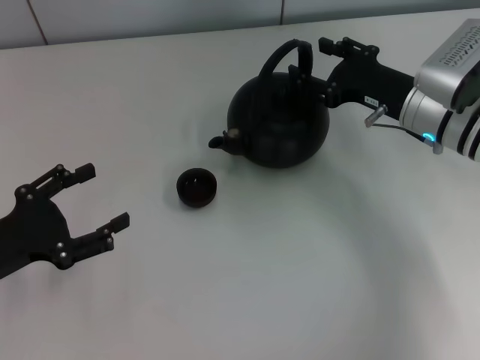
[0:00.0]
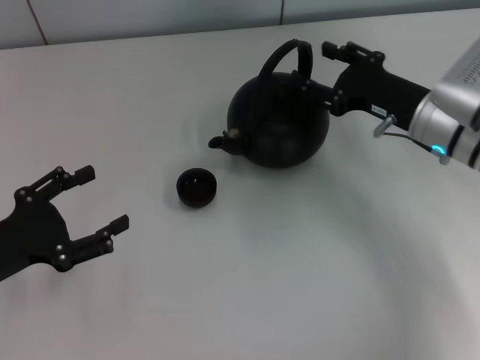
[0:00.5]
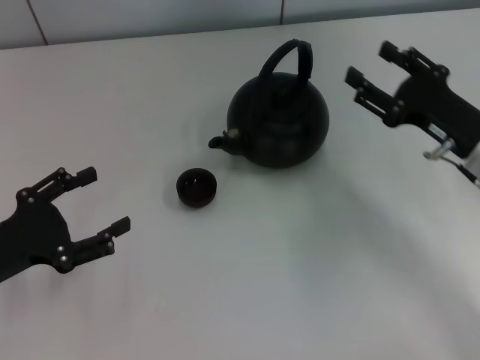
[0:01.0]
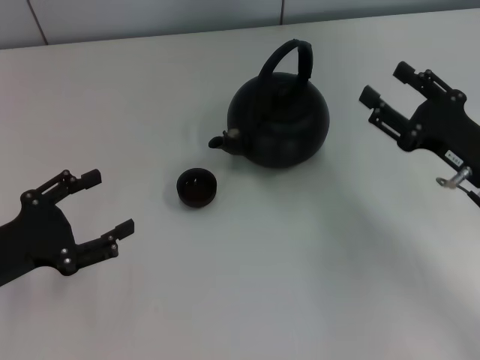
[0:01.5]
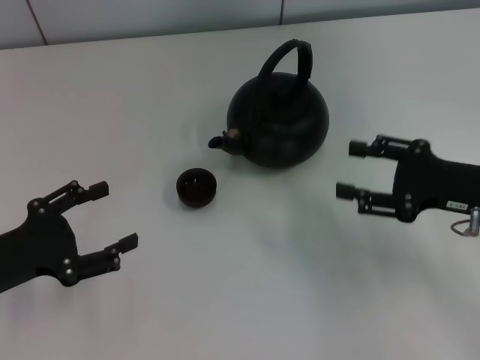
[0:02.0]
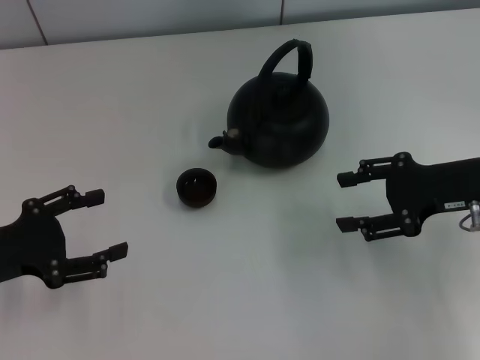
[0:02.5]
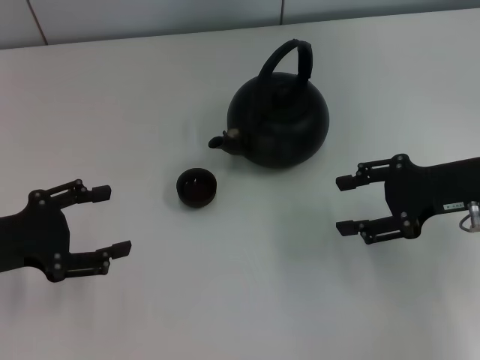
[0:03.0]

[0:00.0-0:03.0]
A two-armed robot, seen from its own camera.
Task of the whole recording: Grasp the handle of the teapot with one hand and pour tea into the teacup.
0:00.0 to 0:01.5: The right gripper travels backward by about 10 cm.
0:01.5 to 0:03.0: The right gripper shifts by approximately 5 cm.

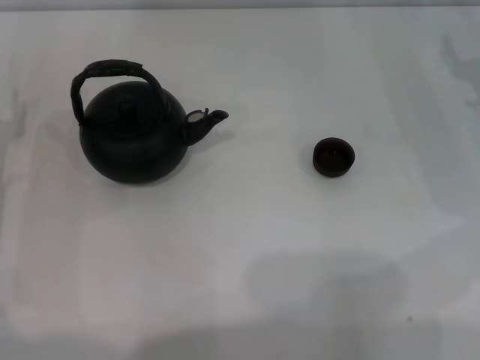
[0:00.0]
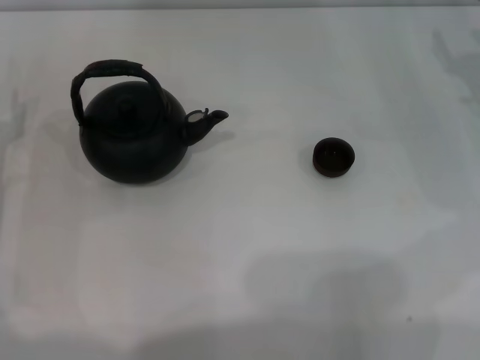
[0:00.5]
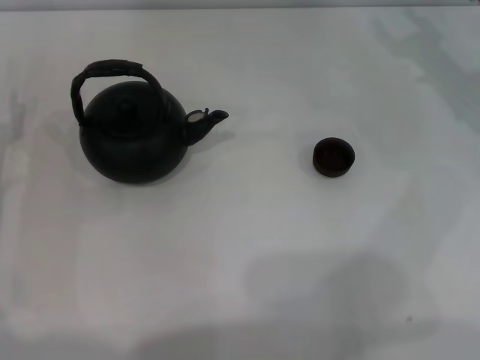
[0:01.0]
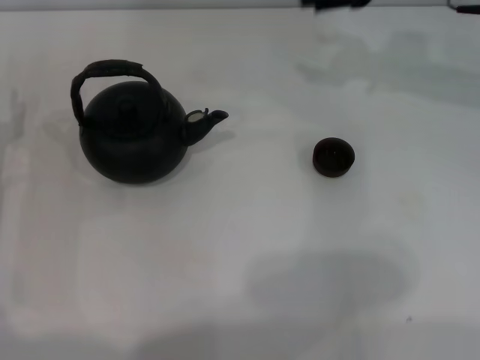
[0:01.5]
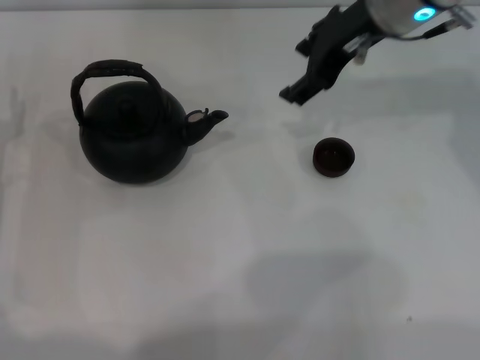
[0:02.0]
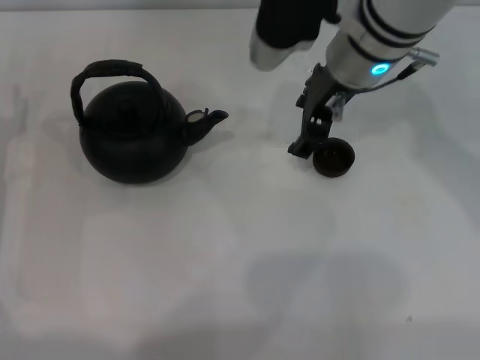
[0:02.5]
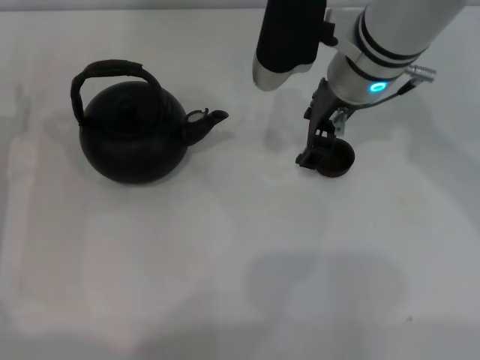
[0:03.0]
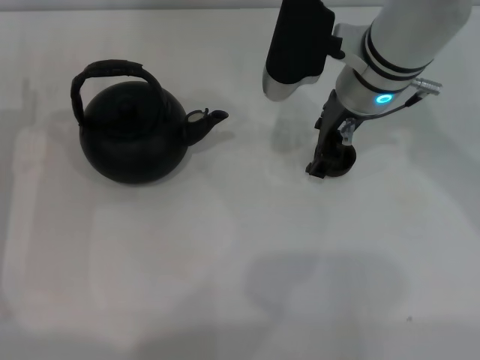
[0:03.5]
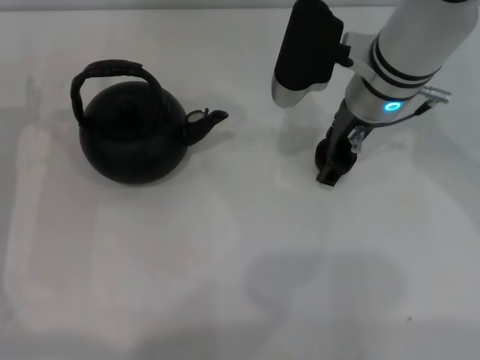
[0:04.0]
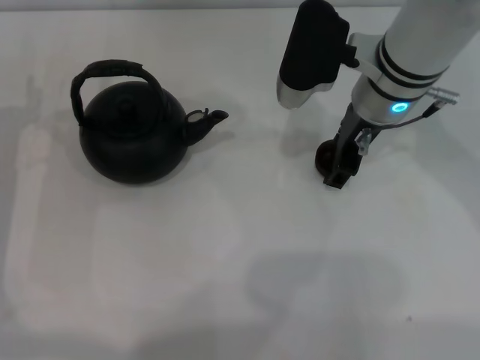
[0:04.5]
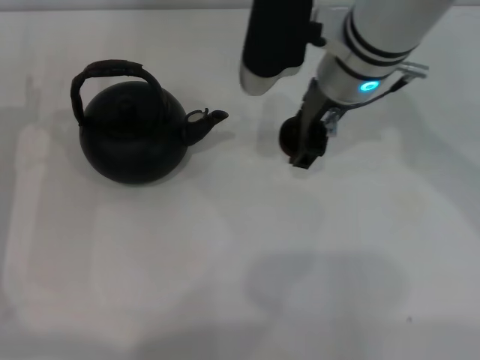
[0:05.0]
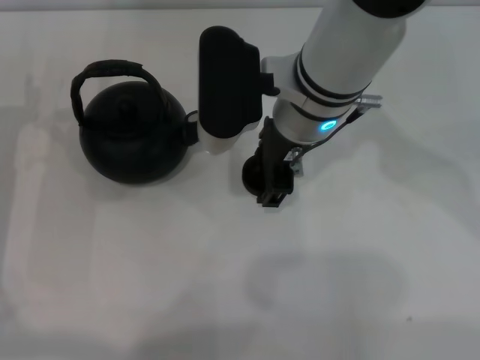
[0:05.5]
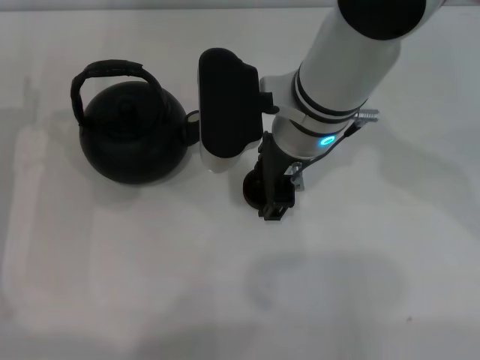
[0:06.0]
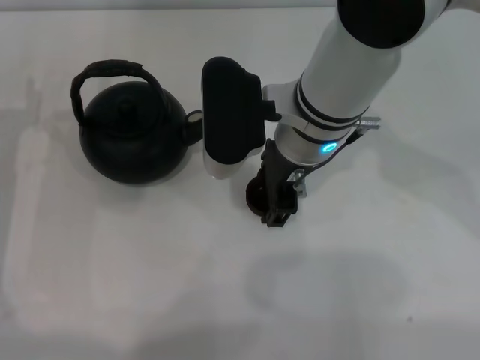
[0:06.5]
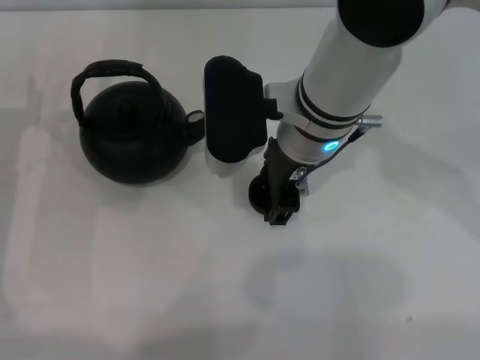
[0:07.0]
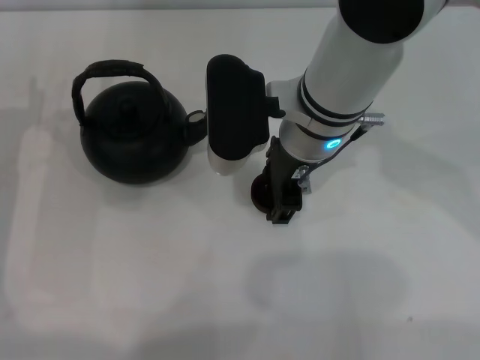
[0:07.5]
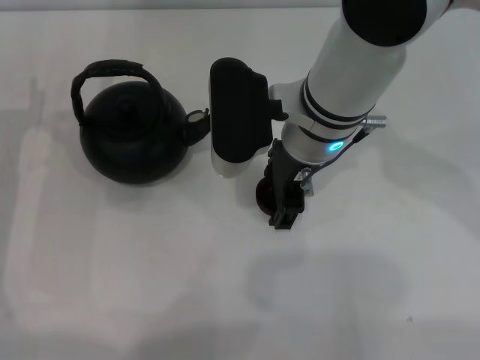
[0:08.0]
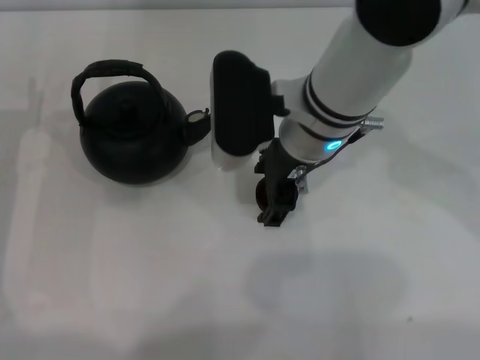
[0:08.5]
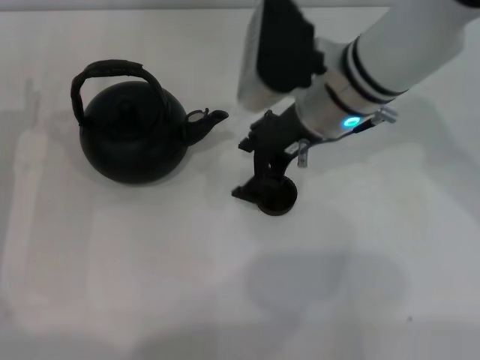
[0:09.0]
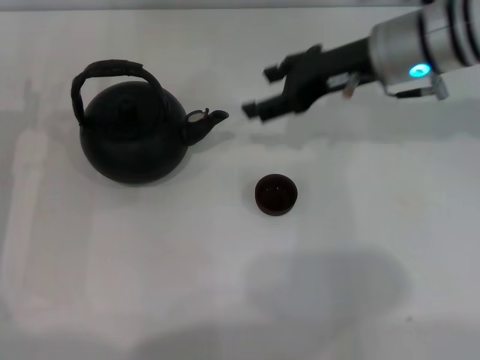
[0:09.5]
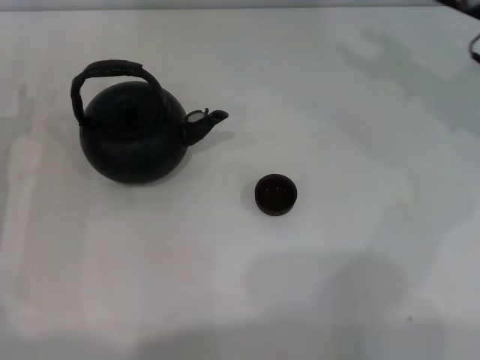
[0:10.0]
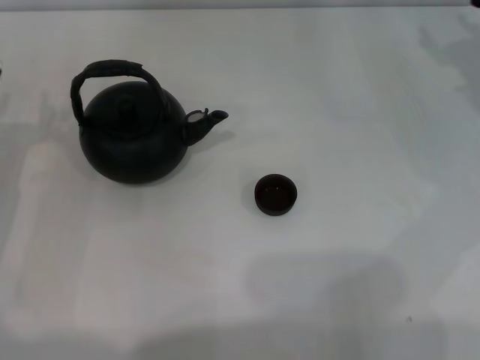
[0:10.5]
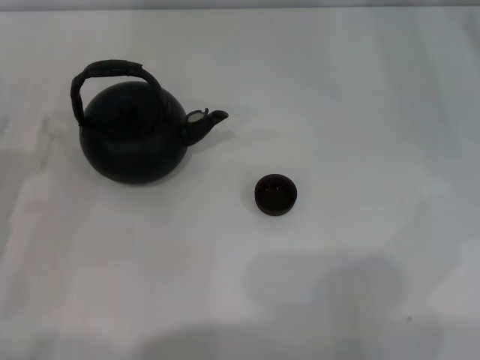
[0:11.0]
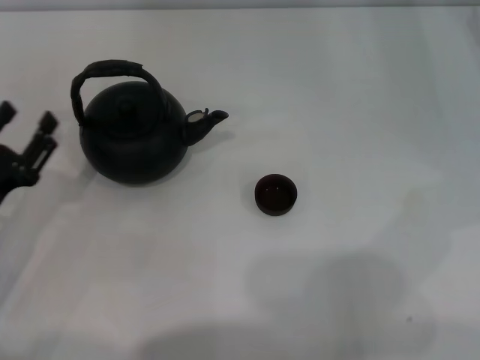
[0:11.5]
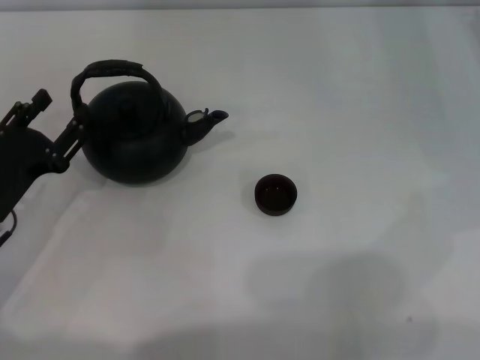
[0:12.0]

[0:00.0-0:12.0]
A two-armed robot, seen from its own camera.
Task of the whole recording: Grasp the handle of the teapot with one hand and pour tea into the teacup.
Step, 0:00.0 to 0:04.5: Pick up the teacup with the right gripper.
Step, 0:05.0 to 0:08.5: Place the teacup in the center of view with the right gripper.
0:00.0 to 0:02.0: The right gripper is displaced to the left and upward by about 25 cm.
0:02.0 to 0:04.0: The right gripper is displaced downward by roughly 10 cm.
0:04.0 to 0:06.0: The right gripper heads to the left, covering about 5 cm.
0:06.0 to 0:08.0: The right gripper opens its fingers.
0:08.0 to 0:10.0: The right gripper heads to the right, covering roughly 20 cm, and opens.
0:10.0 to 0:12.0: The left gripper ends up about 5 cm from where it was.

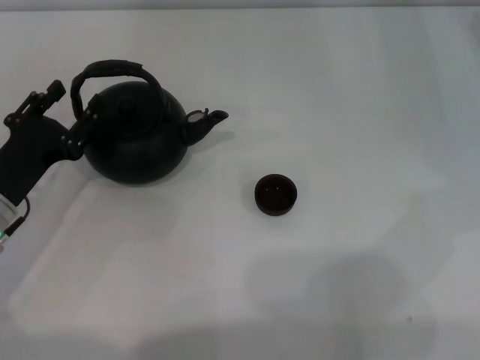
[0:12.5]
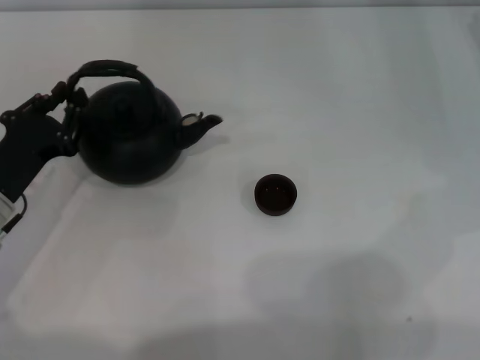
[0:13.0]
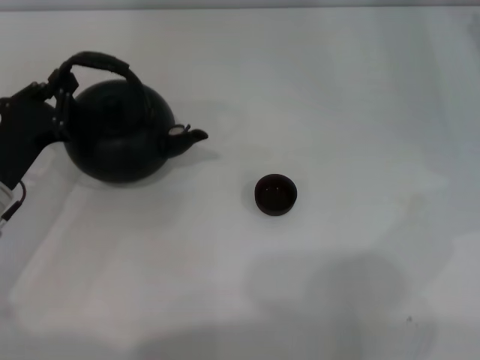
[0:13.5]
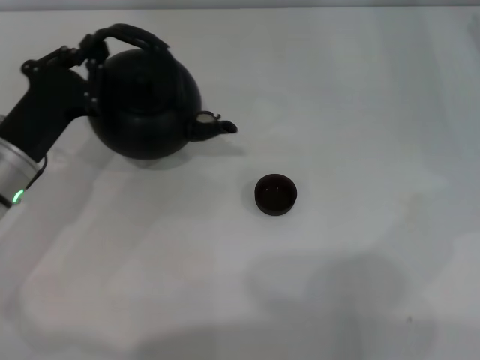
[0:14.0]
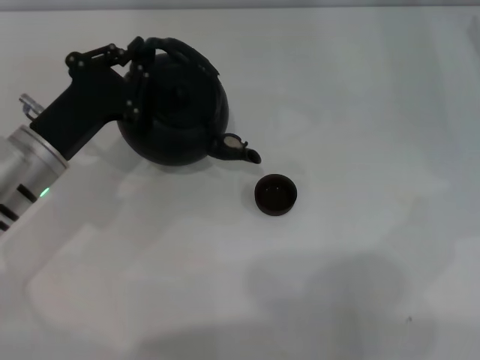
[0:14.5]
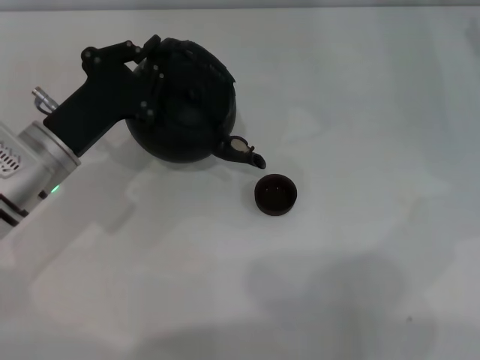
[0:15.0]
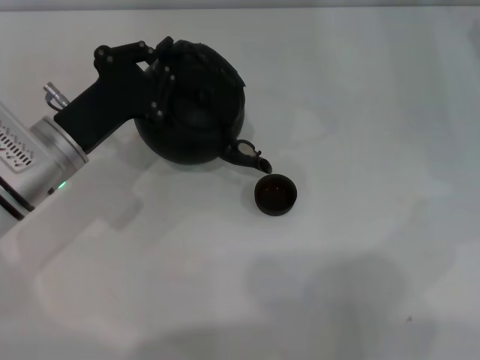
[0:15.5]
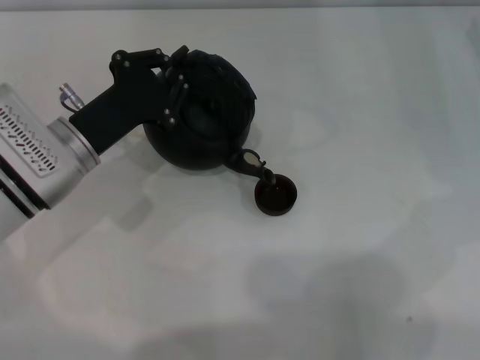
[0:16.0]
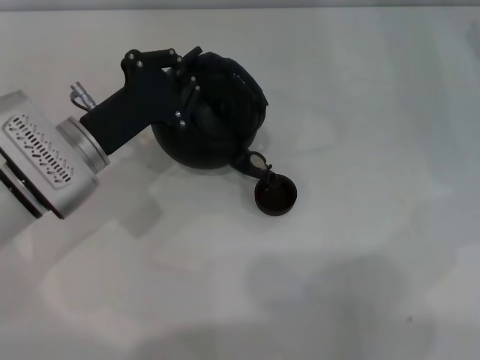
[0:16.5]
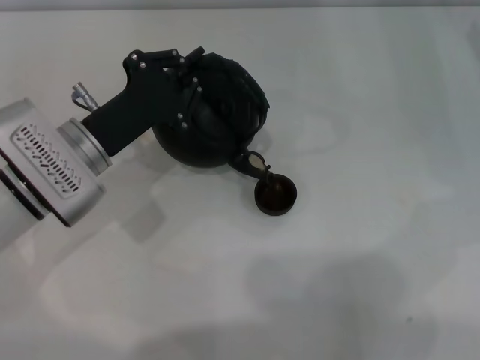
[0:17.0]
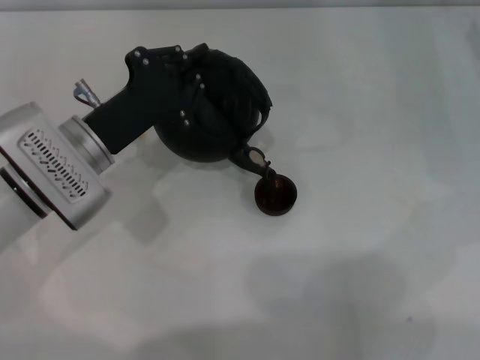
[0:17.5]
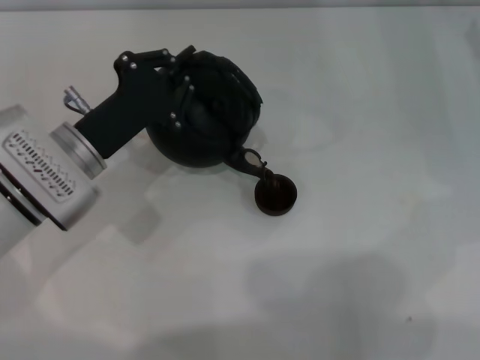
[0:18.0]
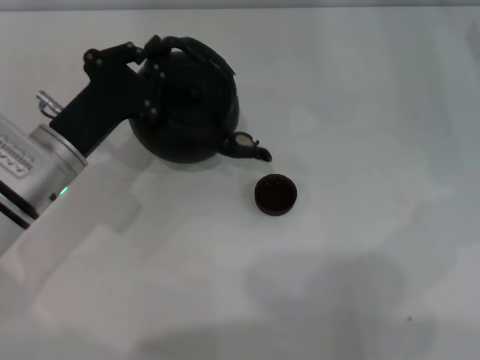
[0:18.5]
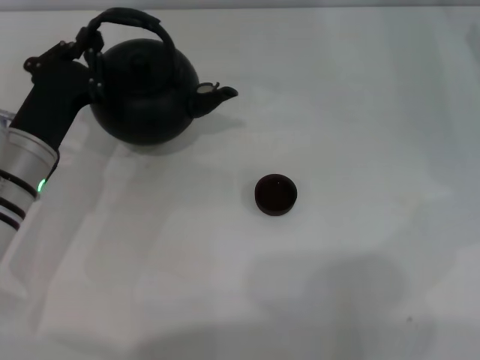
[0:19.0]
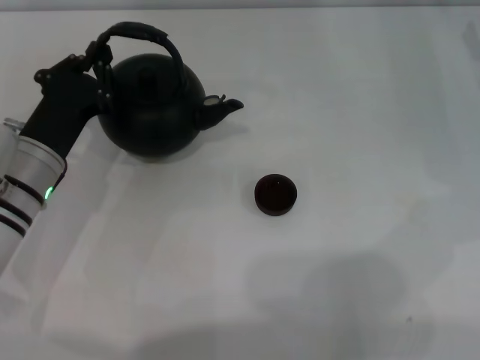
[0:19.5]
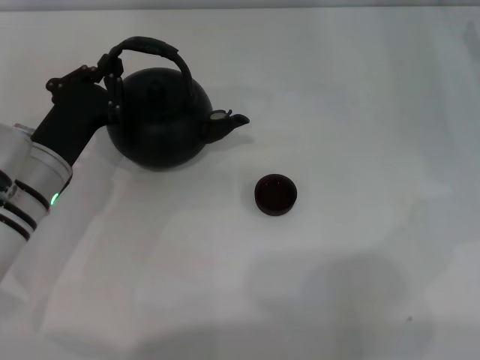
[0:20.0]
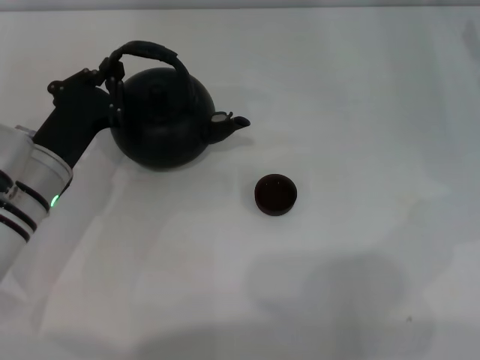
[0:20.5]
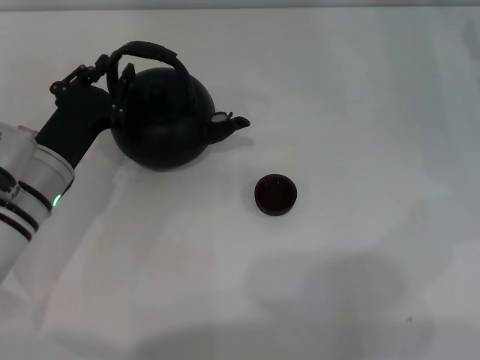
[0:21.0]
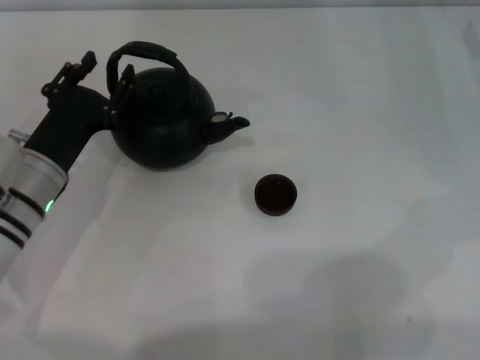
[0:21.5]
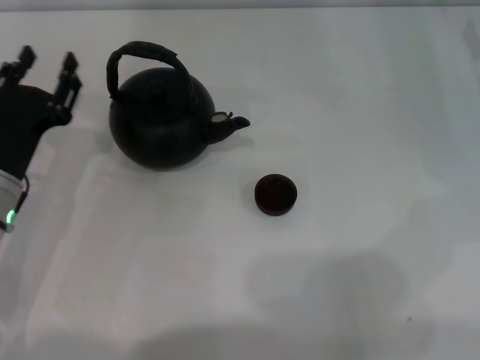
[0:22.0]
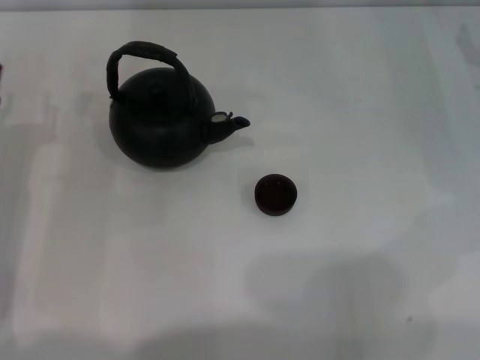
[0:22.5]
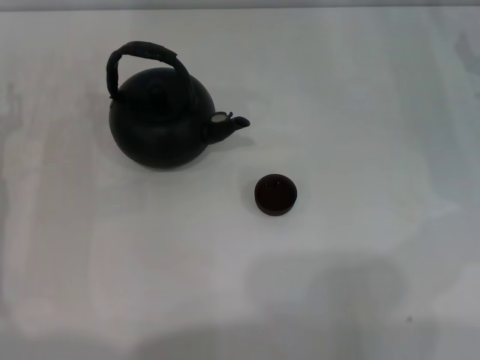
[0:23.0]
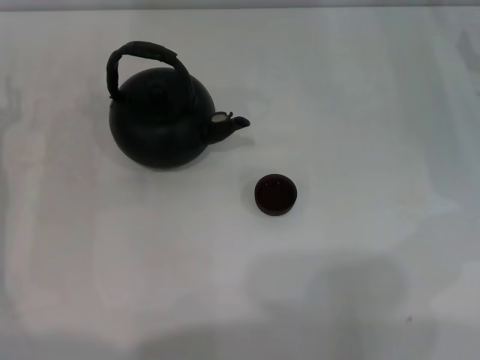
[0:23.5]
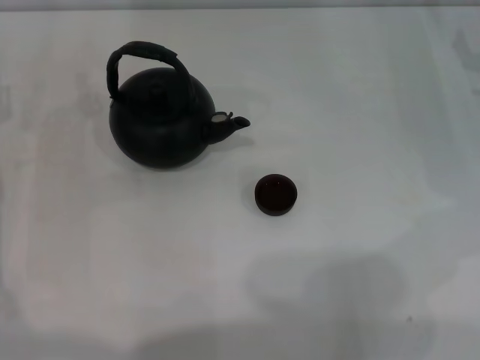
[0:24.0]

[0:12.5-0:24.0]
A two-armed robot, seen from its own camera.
Task of the whole recording: Grasp the handle of the teapot with one hand and pour tea into the teacup.
Step, 0:14.5 to 0:18.0: Pour tea into the teacup with the left gripper.
Step, 0:18.5 to 0:22.0: Put down the teapot with the left gripper.
0:12.5 to 0:14.5: The left gripper shifts by approximately 5 cm, and closes up.
0:14.5 to 0:16.5: The grippers stay close to where they were, moving slightly.
0:16.5 to 0:18.5: The grippers stay close to where they were, moving slightly.
0:20.0 to 0:22.0: The left gripper opens its fingers.
0:22.0 to 0:24.0: The left gripper moves to the left, approximately 5 cm.
